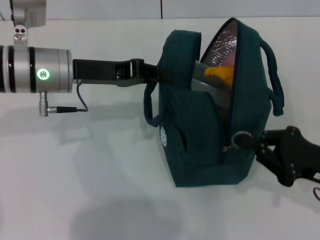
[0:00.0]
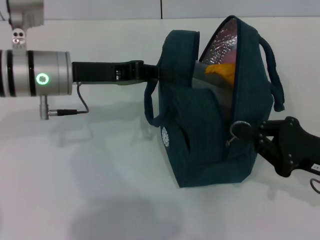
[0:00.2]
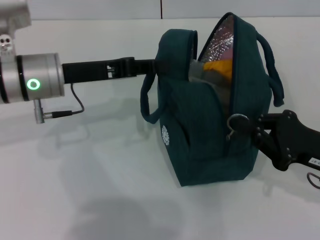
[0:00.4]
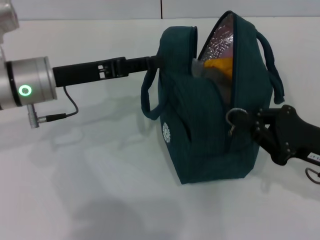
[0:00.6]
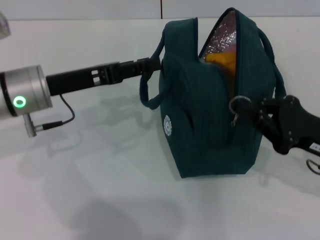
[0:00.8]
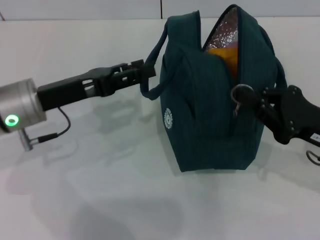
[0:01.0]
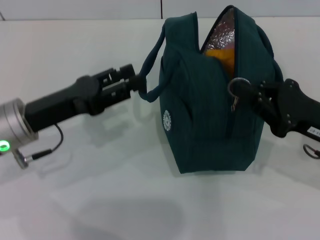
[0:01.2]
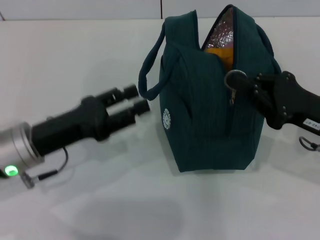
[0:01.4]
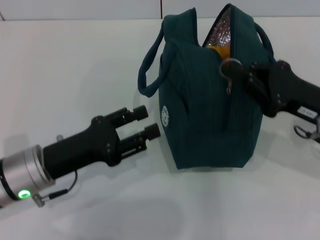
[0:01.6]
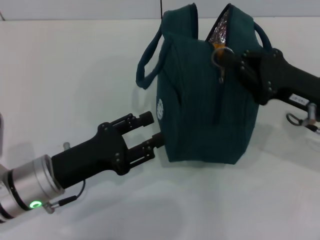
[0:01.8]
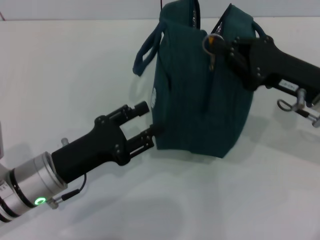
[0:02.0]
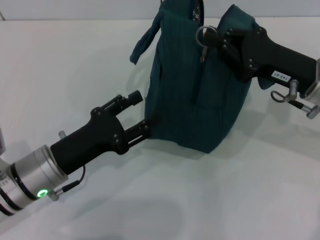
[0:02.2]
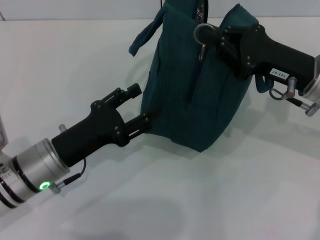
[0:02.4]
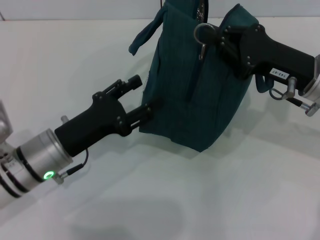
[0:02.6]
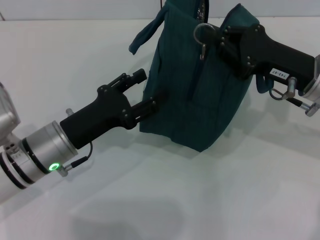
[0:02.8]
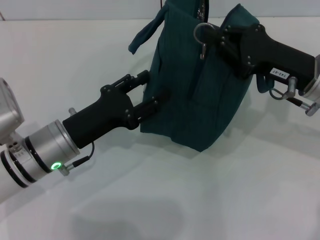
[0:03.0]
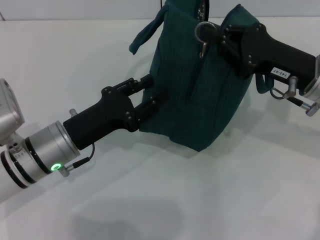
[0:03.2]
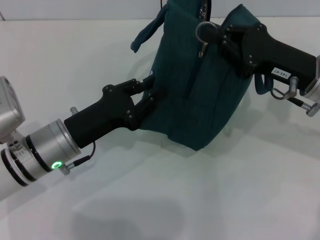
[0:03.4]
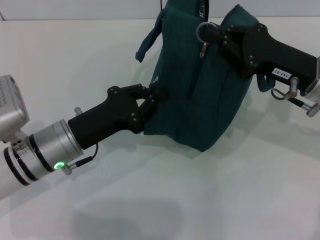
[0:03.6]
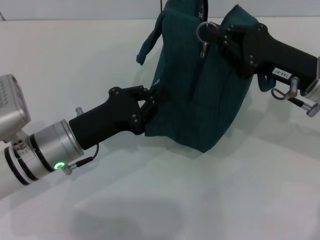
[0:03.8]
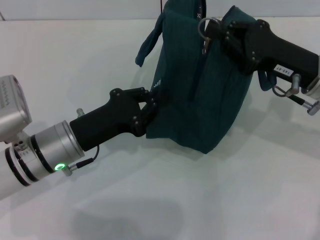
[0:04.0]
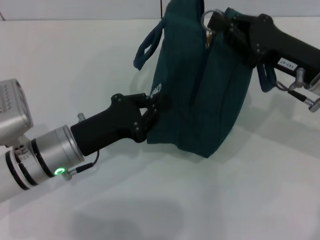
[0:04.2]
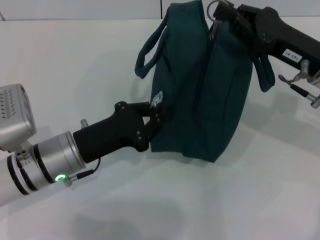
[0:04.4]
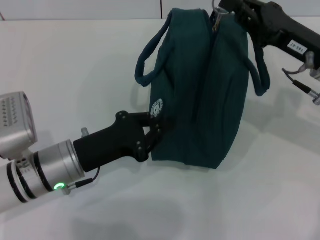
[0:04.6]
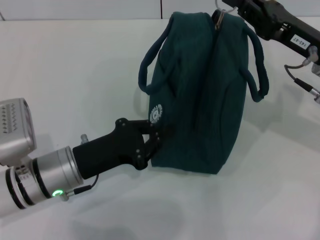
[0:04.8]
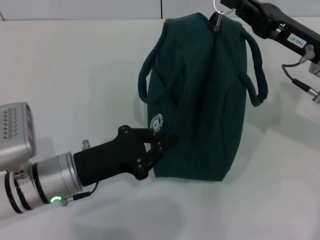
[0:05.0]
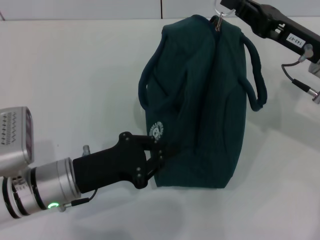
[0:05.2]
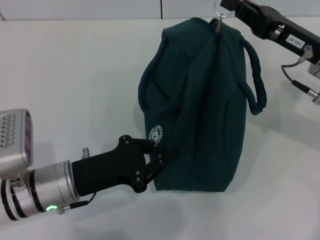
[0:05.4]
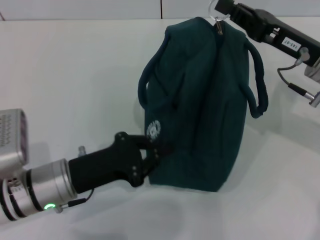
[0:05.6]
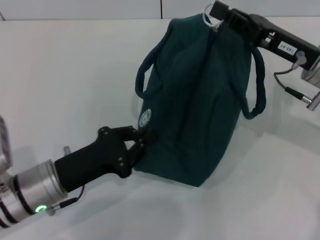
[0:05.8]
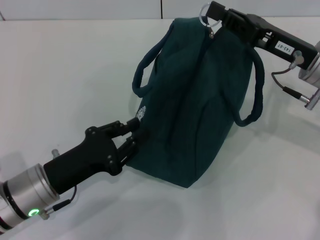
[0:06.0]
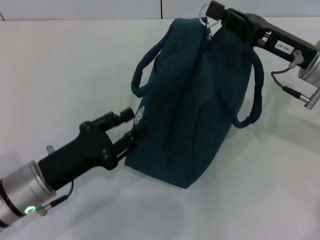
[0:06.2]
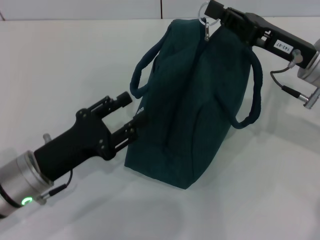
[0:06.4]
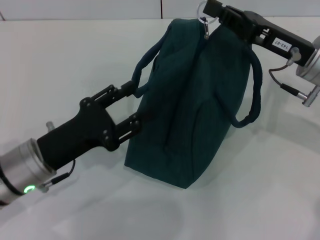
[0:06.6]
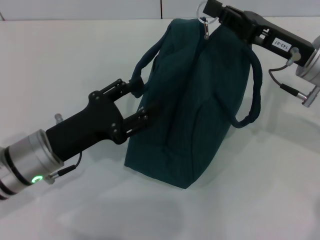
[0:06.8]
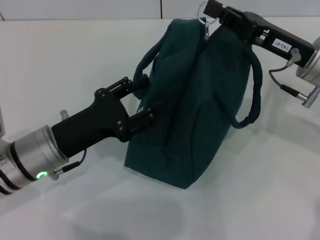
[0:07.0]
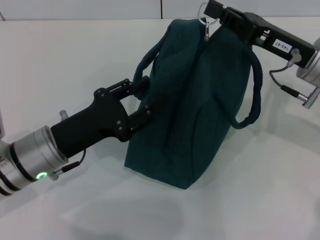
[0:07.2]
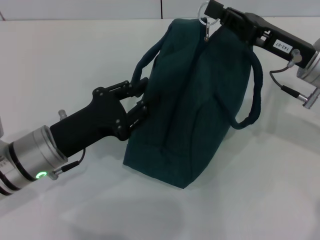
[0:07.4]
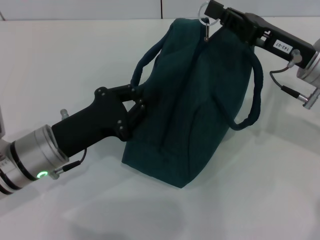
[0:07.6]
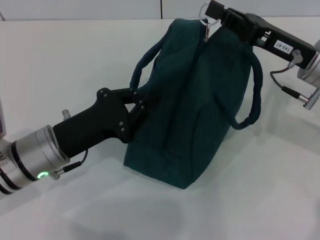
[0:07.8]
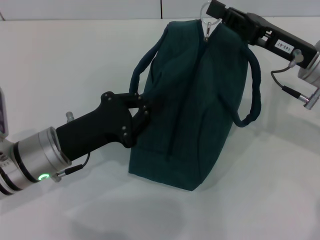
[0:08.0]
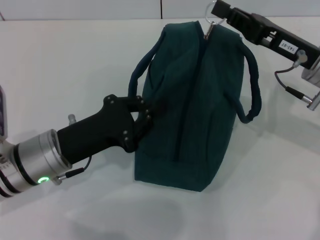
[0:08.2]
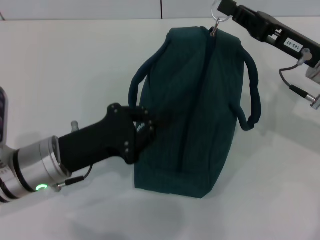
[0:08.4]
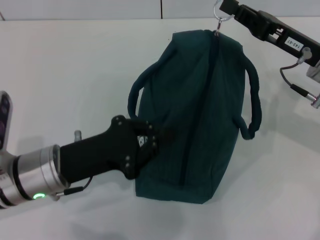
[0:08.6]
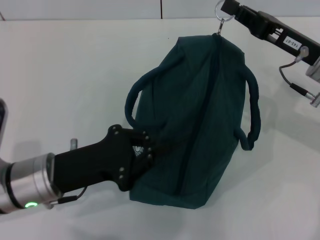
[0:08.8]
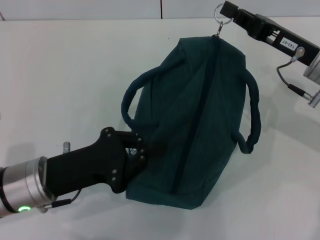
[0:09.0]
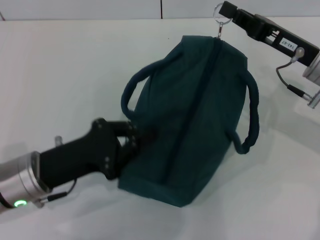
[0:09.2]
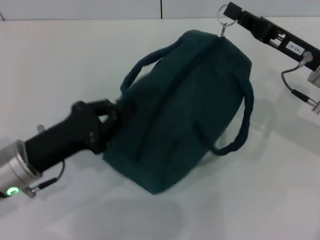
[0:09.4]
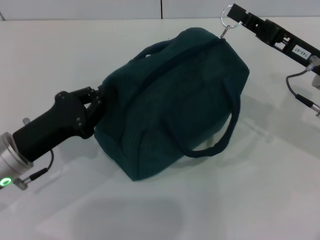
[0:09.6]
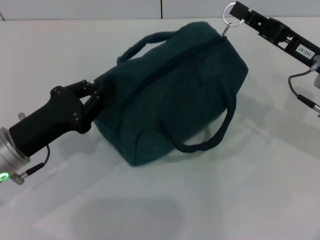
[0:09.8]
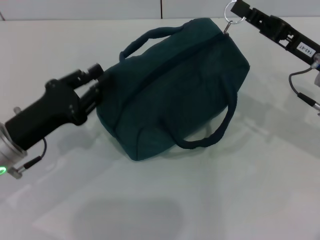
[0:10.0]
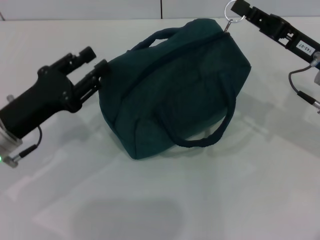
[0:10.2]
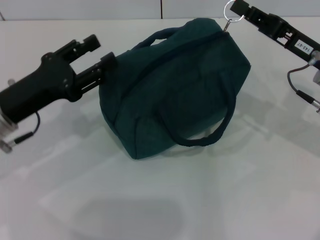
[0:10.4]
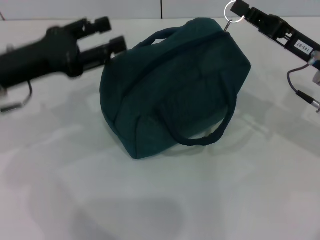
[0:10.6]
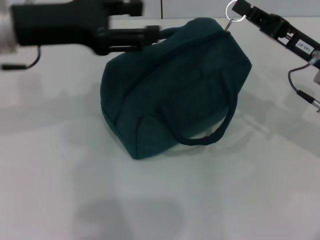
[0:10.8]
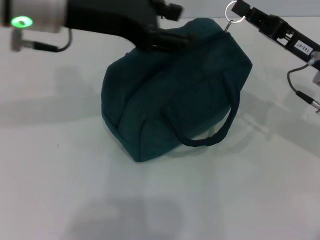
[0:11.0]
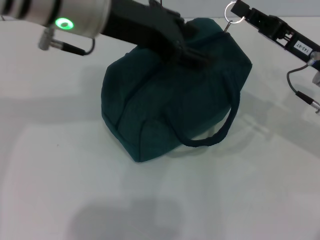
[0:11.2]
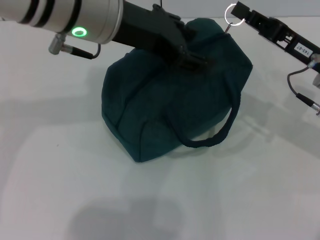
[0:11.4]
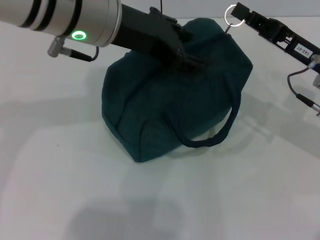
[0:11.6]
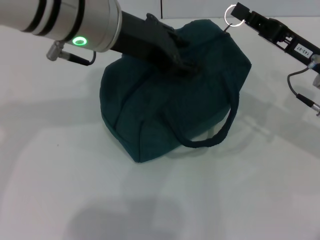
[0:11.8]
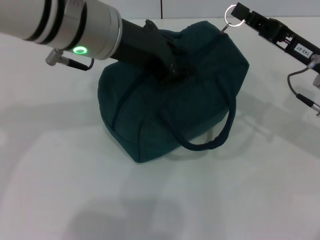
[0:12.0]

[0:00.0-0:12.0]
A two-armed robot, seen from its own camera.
0:00.0 to 0:01.6: The right gripper shifts approximately 5 cm forward; the left gripper travels backward and downward by roughly 15 cm, and opens.
0:01.6 to 0:03.0: The right gripper ends up some 5 cm from where it was.
0:03.0 to 0:04.4: The left gripper closes.
0:04.4 to 0:06.0: The left gripper moves some 5 cm.
0:06.0 to 0:07.6: The left gripper changes place by about 5 cm, and opens and closes again.
0:09.0 to 0:10.4: The left gripper goes some 5 cm forward, and opens.
0:10.4 to 0:12.0: The left gripper moves to the right and upward, some 20 cm.

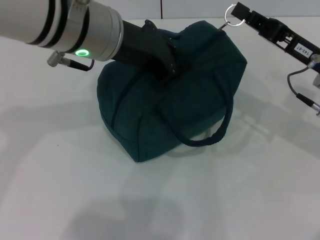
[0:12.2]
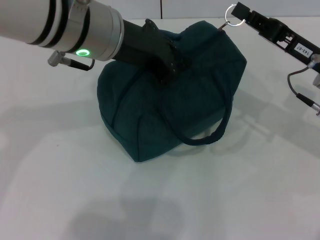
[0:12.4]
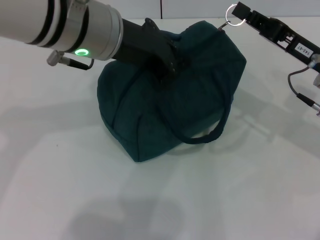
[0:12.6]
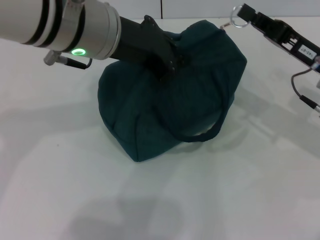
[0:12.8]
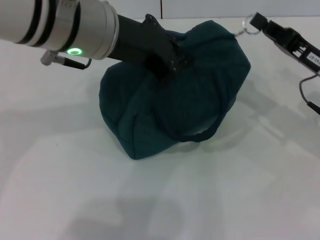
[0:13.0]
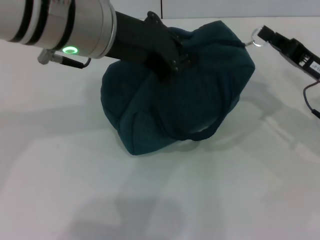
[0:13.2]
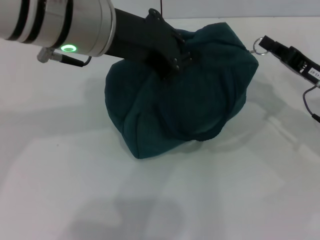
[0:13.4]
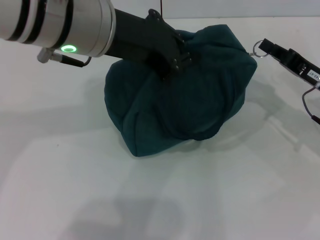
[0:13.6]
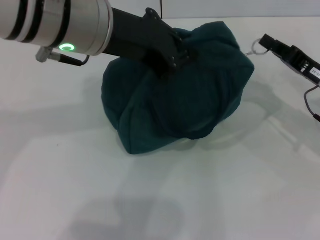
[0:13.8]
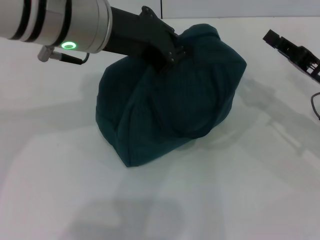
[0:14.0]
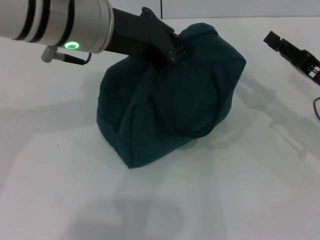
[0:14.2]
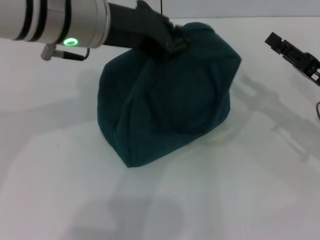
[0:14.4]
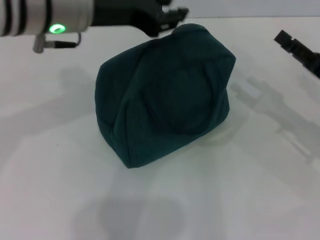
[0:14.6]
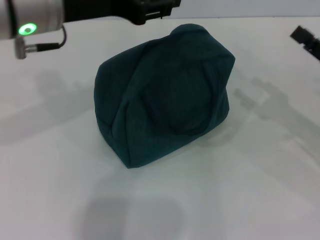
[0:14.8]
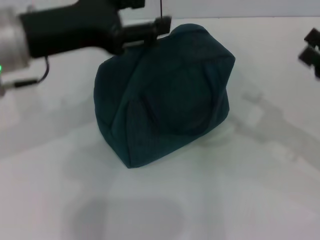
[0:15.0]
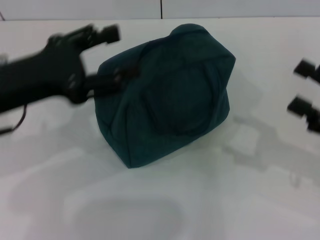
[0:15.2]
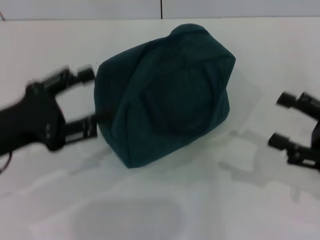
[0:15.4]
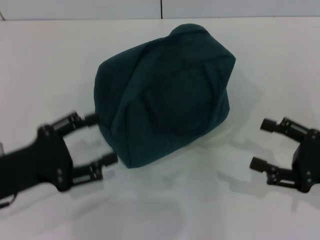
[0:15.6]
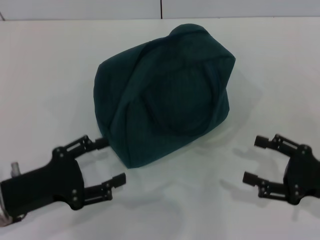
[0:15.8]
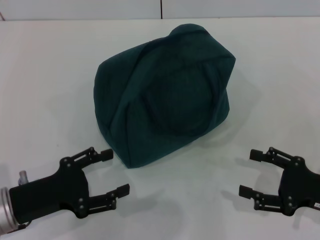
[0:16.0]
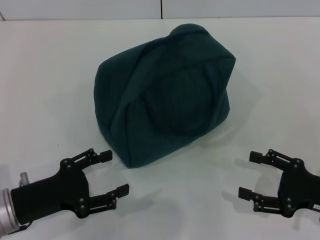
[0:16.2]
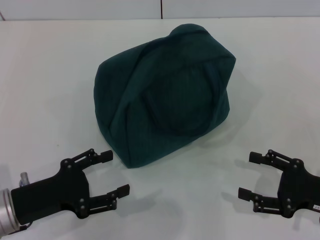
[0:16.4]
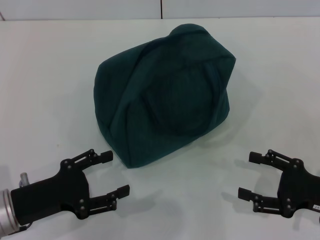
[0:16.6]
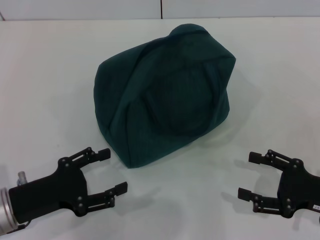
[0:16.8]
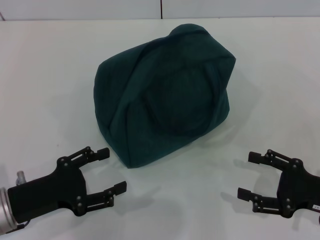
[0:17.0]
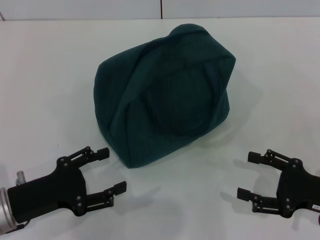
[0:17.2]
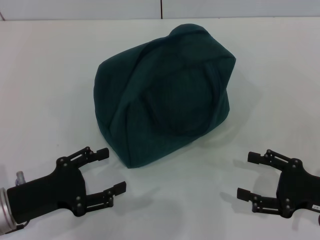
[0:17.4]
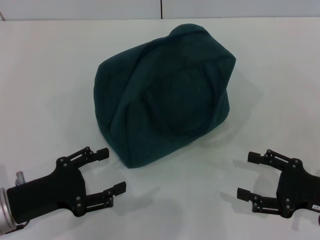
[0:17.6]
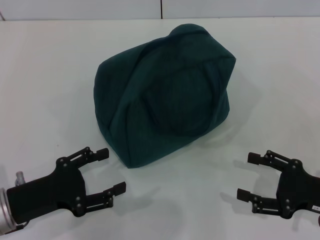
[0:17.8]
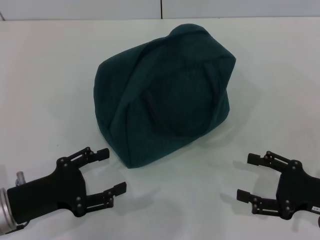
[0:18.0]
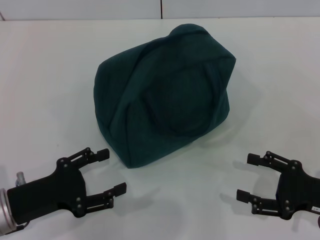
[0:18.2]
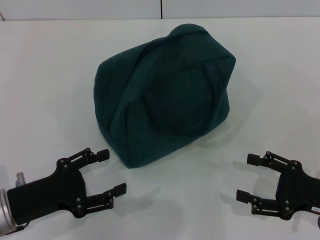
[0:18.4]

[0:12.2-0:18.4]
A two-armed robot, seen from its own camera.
Step, 0:14.0 to 0:14.4: Hold the lunch bag with your left hand.
0:12.2 to 0:13.8: The right gripper moves some 5 cm.
0:13.8 to 0:15.4: The right gripper moves backward, roughly 10 cm, and opens. The left gripper travels to the left, downward and backward by some 20 cm, and opens up.
0:15.4 to 0:16.8: The left gripper is displaced downward by approximately 10 cm; the right gripper moves downward, about 5 cm.
0:16.8 to 0:18.4: Both grippers stay about where they are.

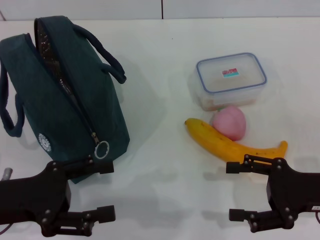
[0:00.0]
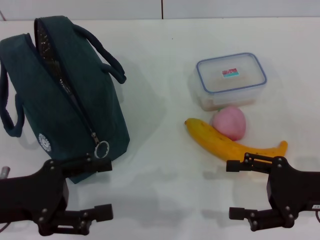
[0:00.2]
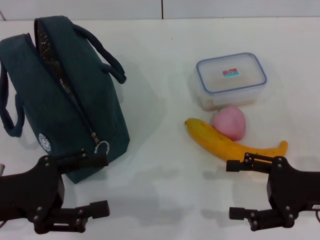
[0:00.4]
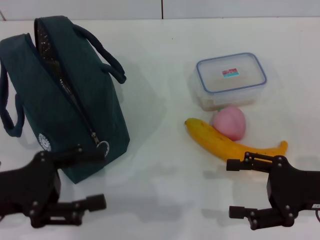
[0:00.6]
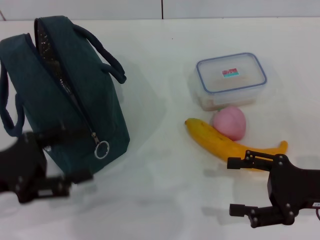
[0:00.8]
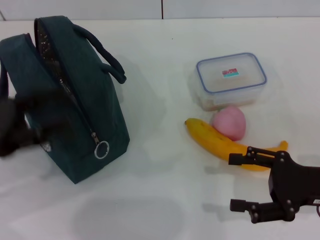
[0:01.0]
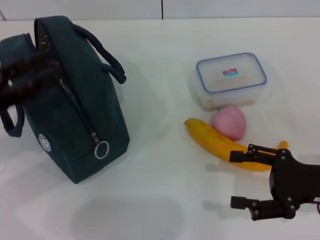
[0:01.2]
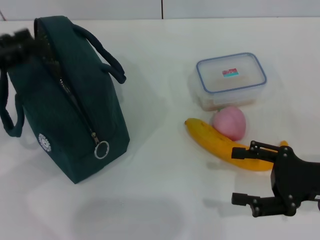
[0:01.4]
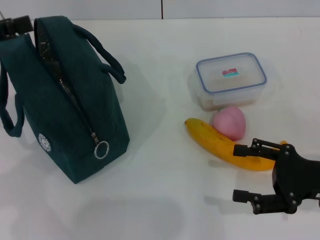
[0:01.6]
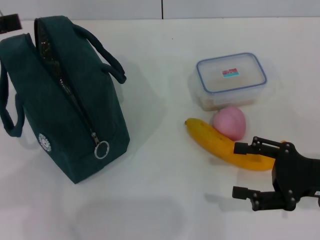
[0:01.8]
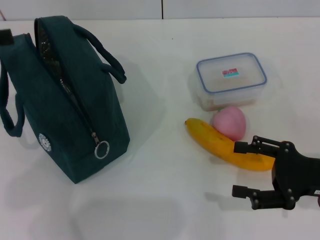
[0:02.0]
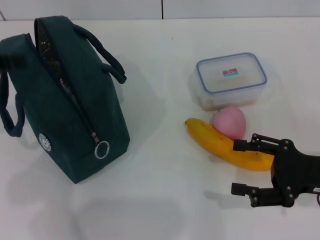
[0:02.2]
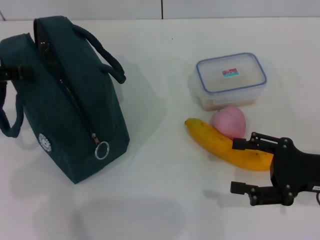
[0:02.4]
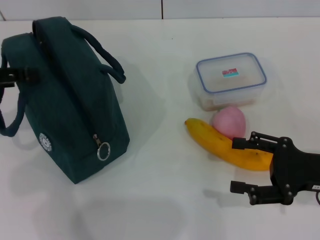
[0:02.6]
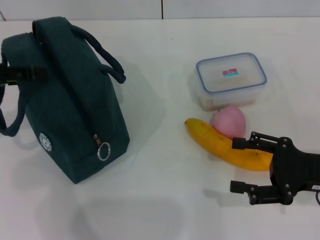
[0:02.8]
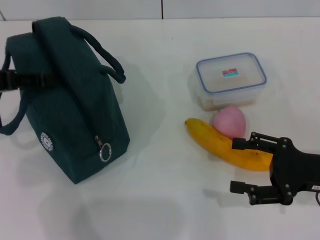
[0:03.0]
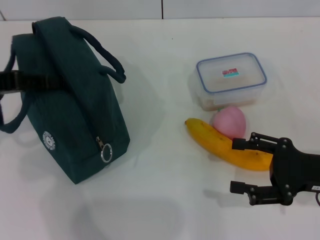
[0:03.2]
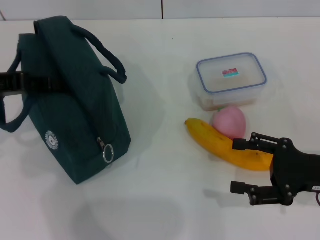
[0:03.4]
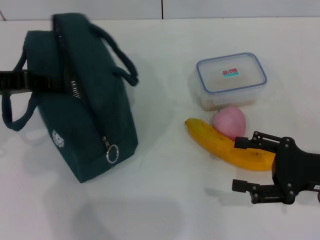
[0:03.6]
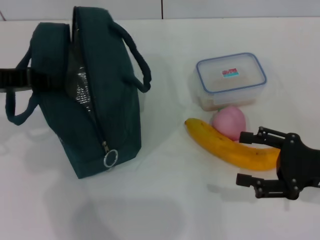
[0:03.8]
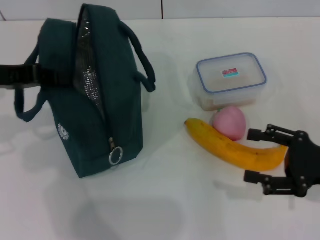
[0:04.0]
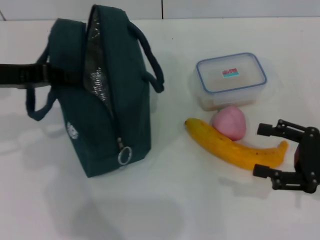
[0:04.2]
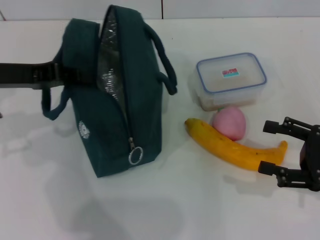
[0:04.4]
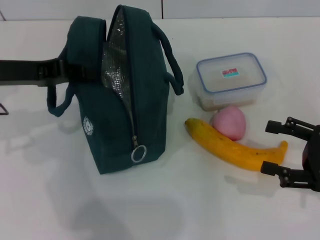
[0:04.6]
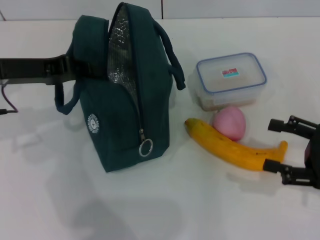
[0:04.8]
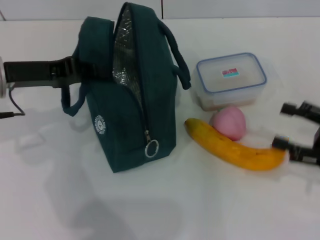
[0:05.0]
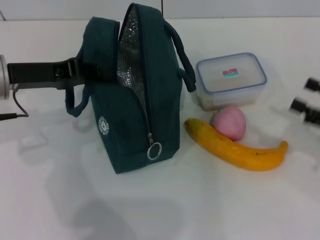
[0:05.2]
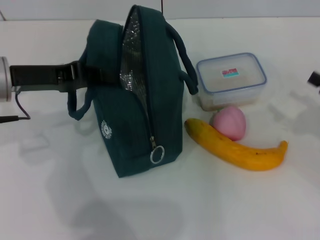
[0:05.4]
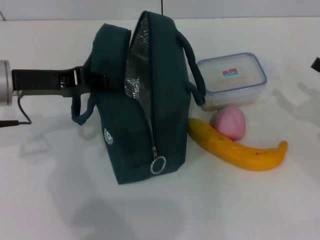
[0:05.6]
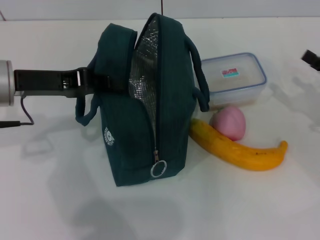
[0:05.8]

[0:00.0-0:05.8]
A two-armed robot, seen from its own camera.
Step, 0:00.0 to 0:05.2: Hold the lunch bag with your left hand.
0:00.0 to 0:01.4: The left gripper is displaced upward, forward and to the left by about 10 cm.
0:02.8 to 0:04.4: The left gripper moves roughly 5 cm, and closes up.
0:04.4 to 0:05.8: The right gripper travels forward by roughly 5 cm.
